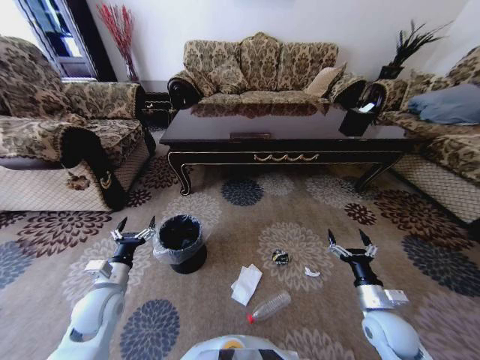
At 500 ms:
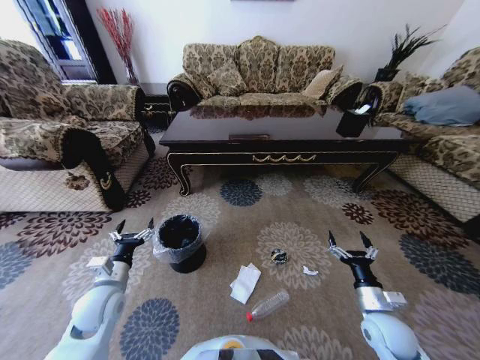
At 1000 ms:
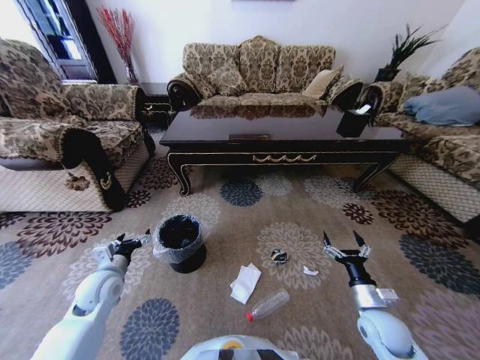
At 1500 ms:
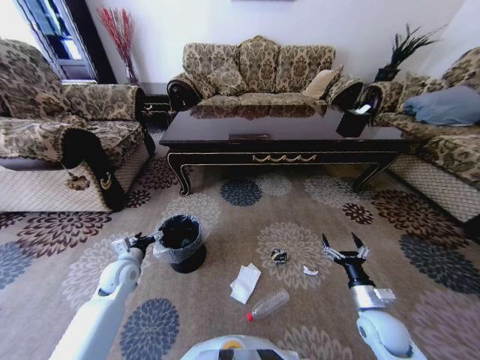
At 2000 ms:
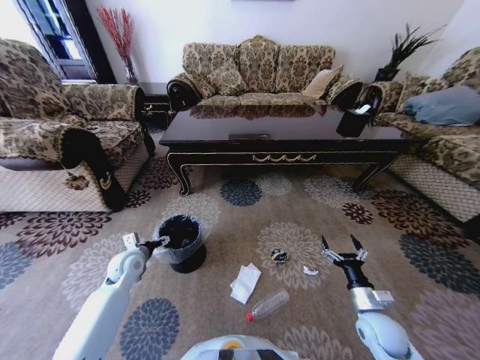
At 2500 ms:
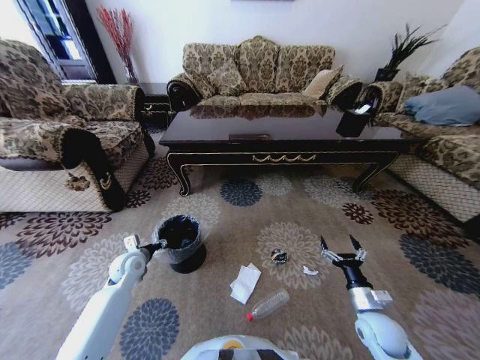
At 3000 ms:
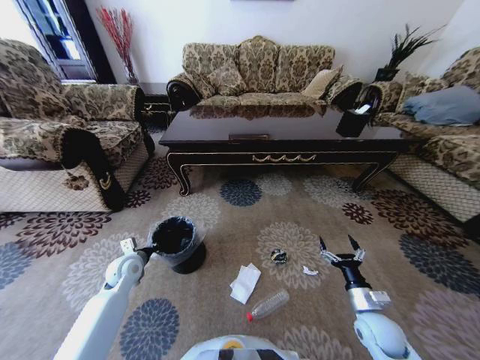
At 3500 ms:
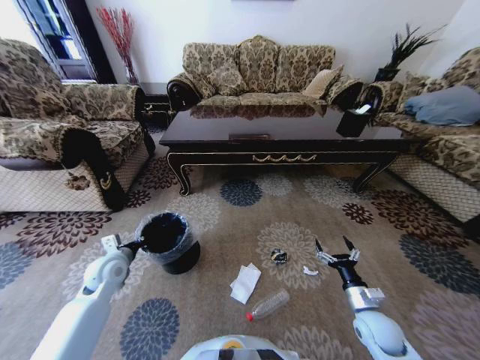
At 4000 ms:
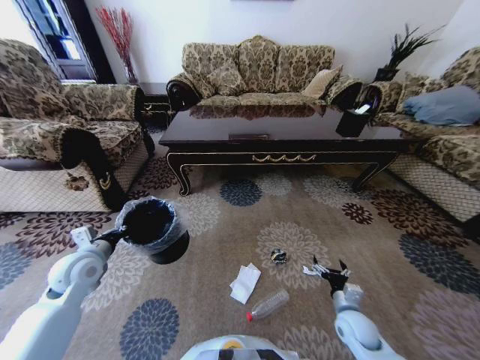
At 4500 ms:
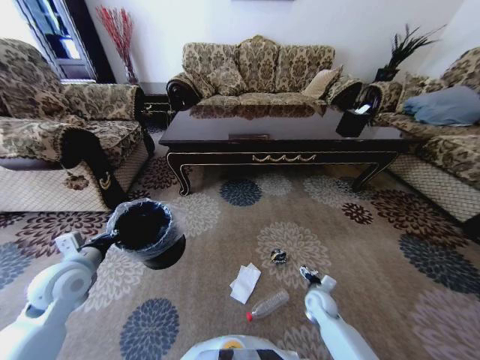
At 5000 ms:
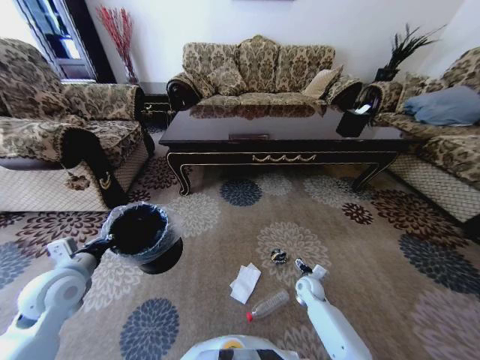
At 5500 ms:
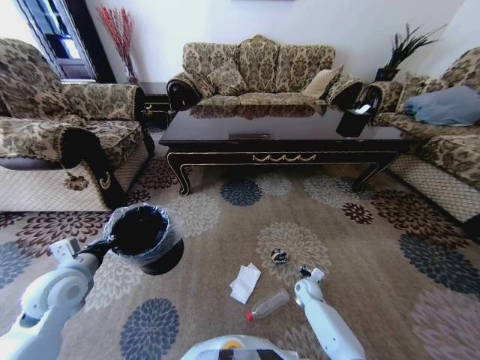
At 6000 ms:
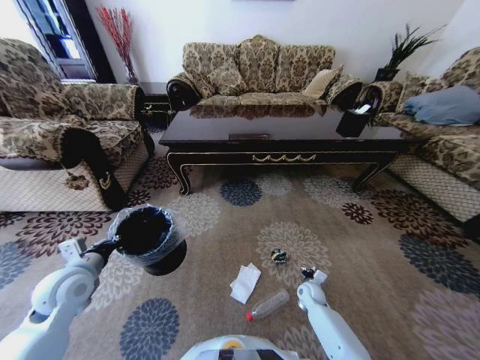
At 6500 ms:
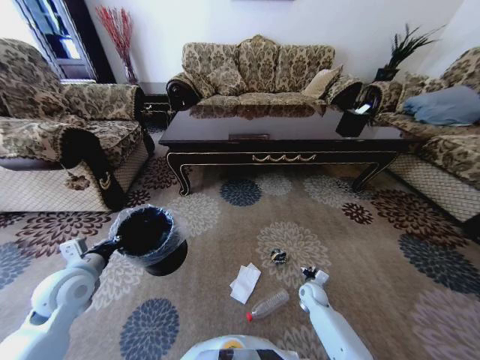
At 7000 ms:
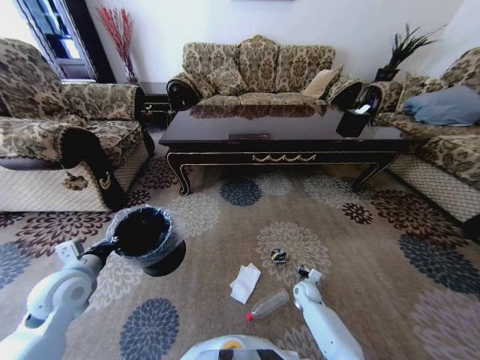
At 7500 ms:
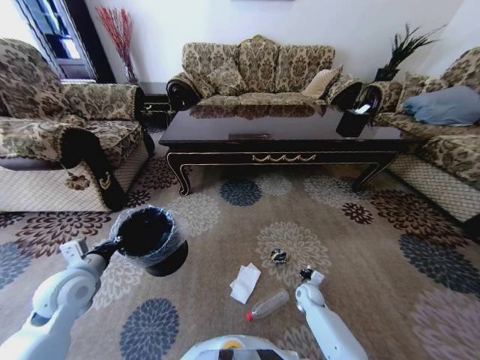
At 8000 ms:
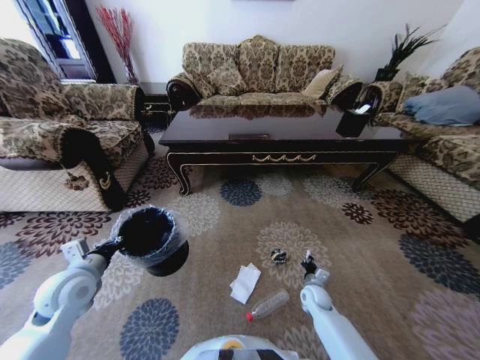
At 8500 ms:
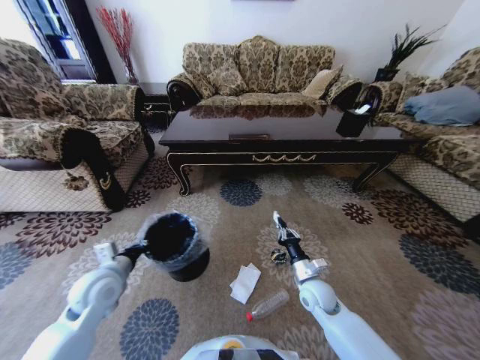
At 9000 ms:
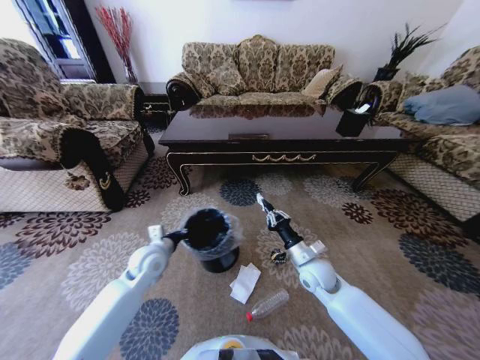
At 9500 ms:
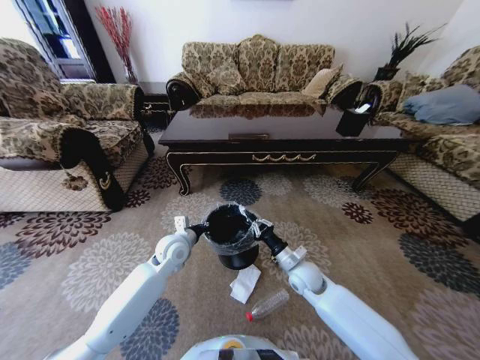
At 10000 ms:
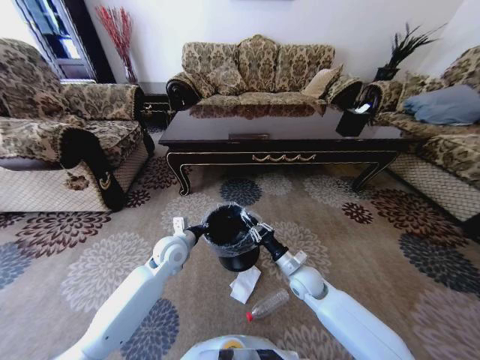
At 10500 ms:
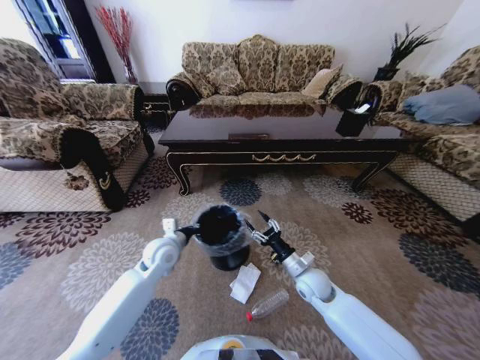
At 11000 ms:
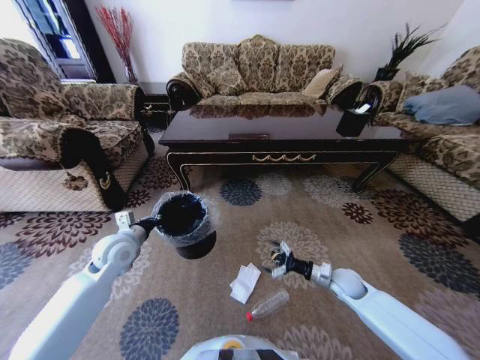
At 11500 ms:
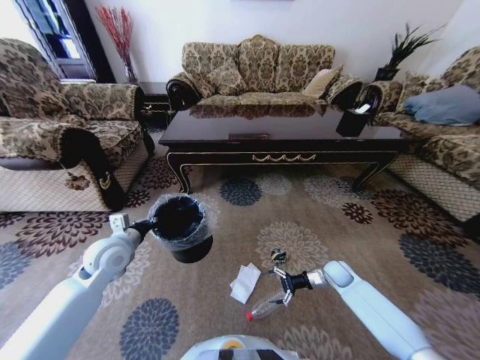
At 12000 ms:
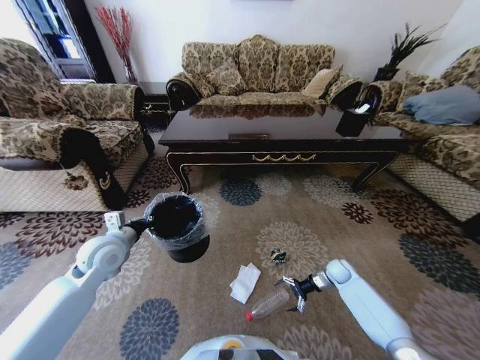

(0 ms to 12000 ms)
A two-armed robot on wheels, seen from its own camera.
Task of the whole recording: Move to the front of the table and pick up the trash from the floor, then place it into the trash bin.
0 ms - 2000 ms: The left gripper heads forward, covering approximately 10 cm.
2000 ms - 4000 ms: The left gripper is displaced upward, backward and to the left by about 15 cm, and closes; the right gripper changes place by some 5 cm.
4000 ms - 6000 ms: The right gripper moves forward and downward, about 15 cm, and closes its fingers.
6000 ms - 8000 ms: The right gripper opens, then closes once more.
8000 ms - 10000 ms: The right gripper moves upward and to the left, some 15 cm. Meanwhile the left gripper is displaced to the right and forward by about 20 cm.
10000 ms - 12000 ms: The right gripper is displaced to the right and downward by about 20 cm, and opens up, while the left gripper travels to the left and upward by roughly 15 cm.

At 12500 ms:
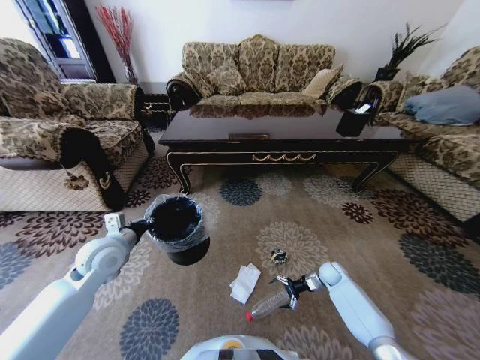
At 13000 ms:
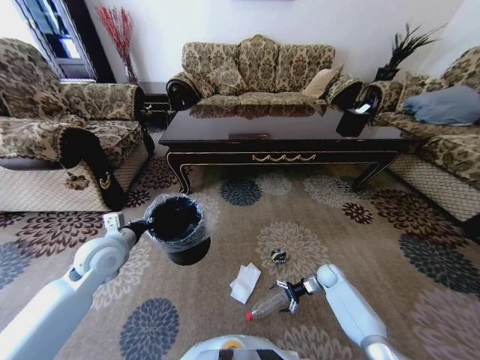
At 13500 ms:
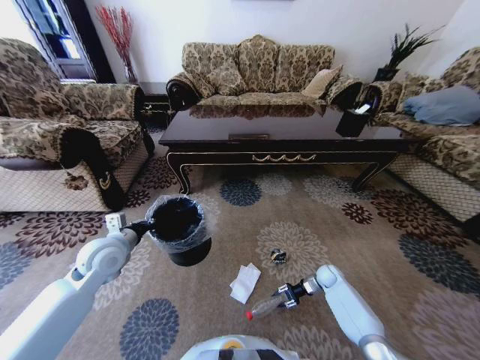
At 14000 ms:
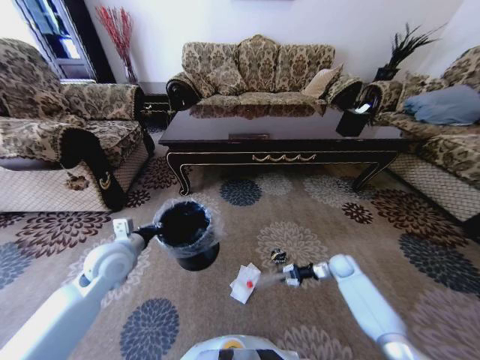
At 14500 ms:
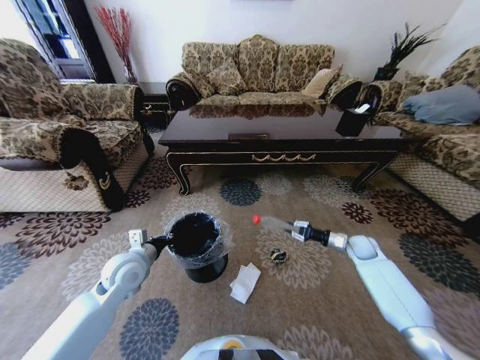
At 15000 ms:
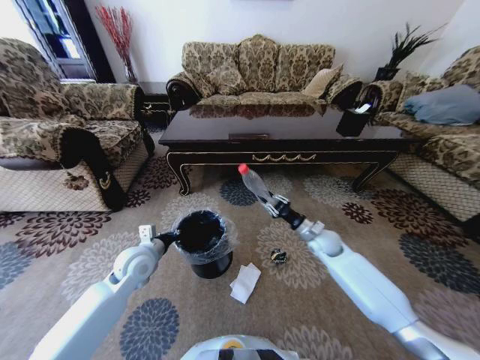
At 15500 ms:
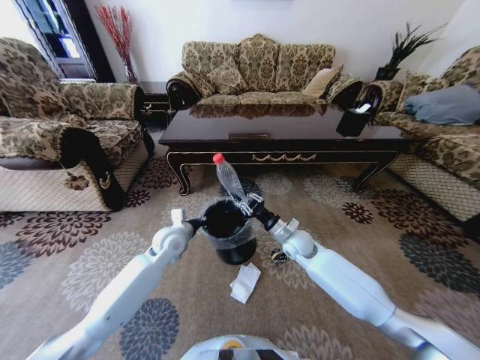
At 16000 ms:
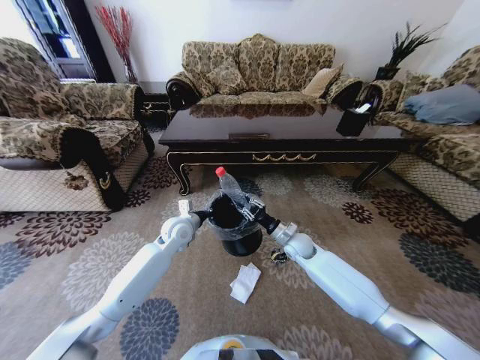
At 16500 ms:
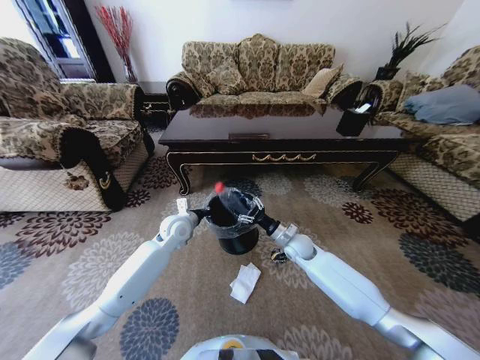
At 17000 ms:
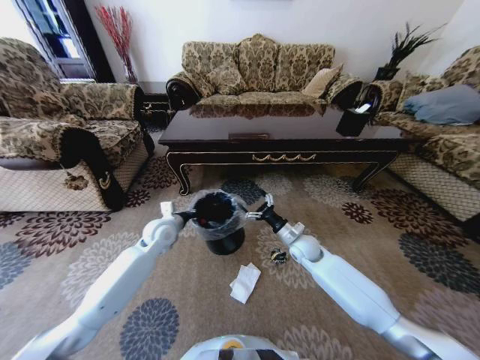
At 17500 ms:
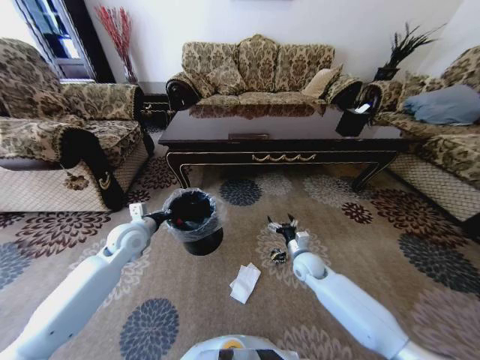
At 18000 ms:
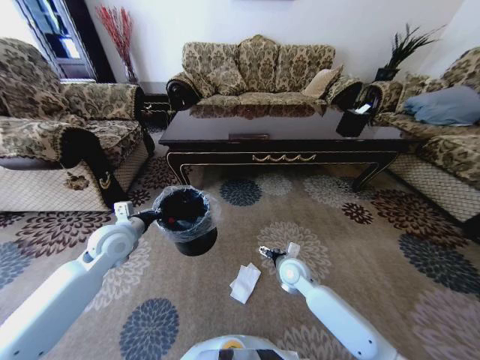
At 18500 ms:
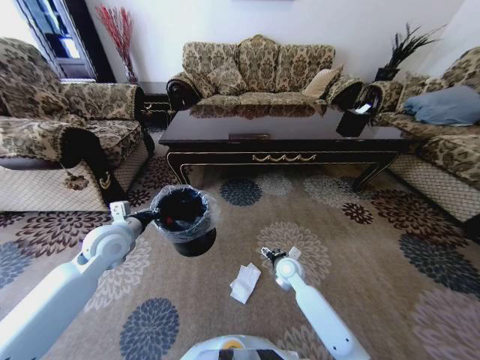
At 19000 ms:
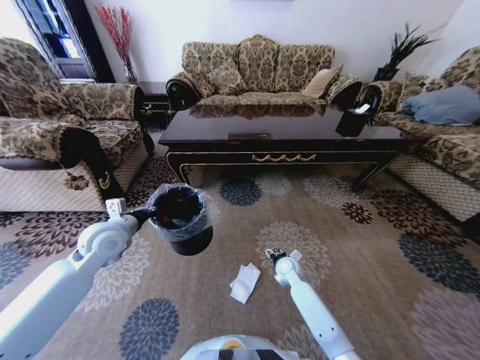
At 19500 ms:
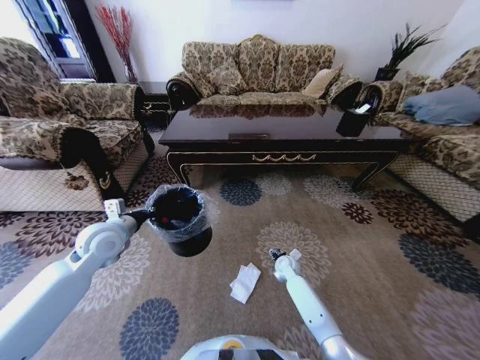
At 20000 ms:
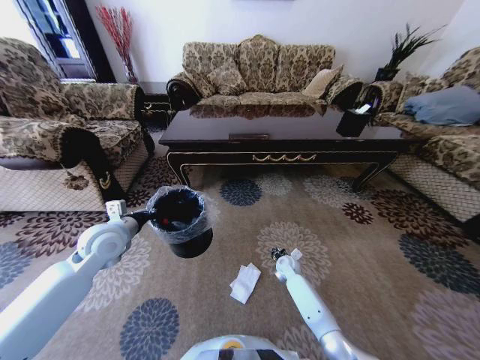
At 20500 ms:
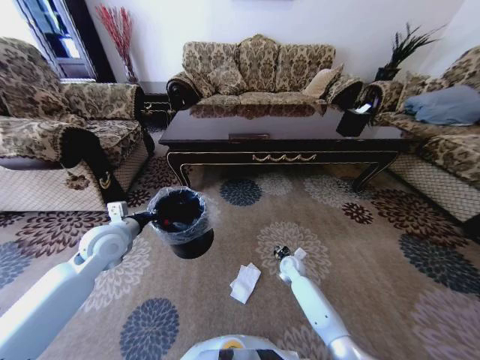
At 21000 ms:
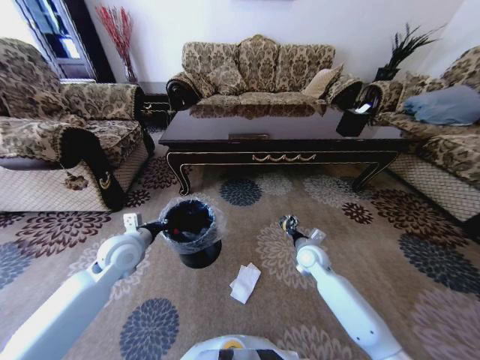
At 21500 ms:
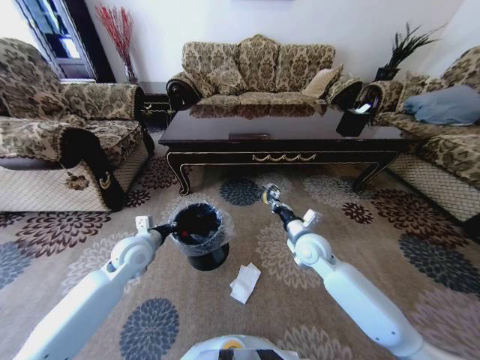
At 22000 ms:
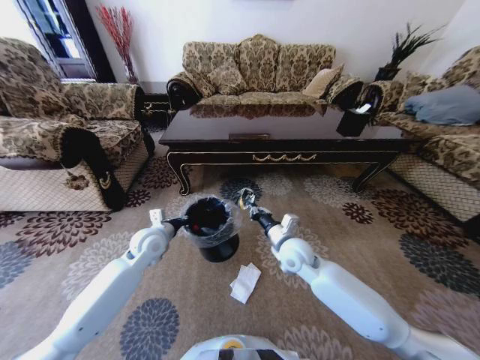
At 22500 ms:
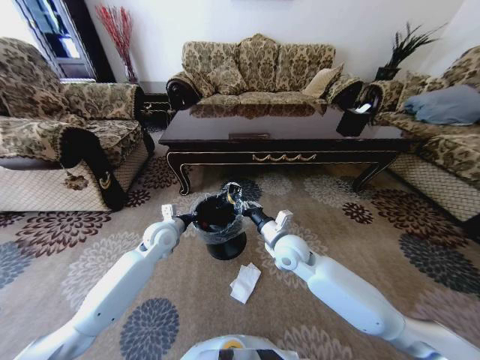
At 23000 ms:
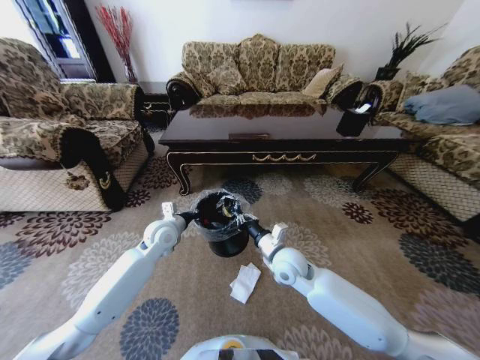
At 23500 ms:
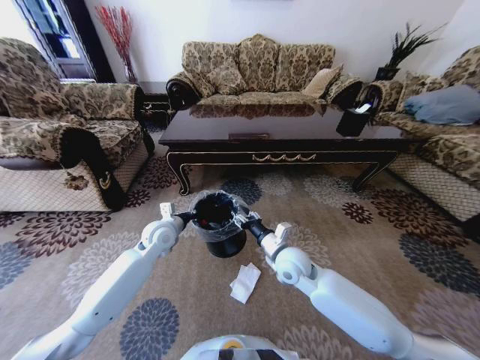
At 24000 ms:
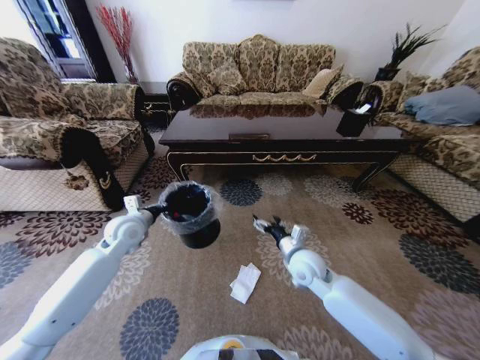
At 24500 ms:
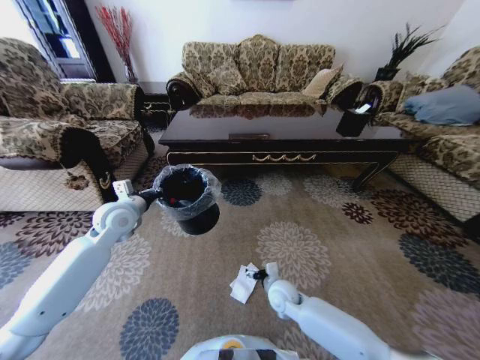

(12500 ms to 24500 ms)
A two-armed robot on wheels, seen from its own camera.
Task of the whole recording: Move to the front of the table and pick up the trash from the floor, then place it into the trash bin.
12500 ms - 14500 ms: The right gripper goes about 15 cm upward and to the right, and closes. Meanwhile the left gripper moves approximately 5 cm.
14500 ms - 16500 ms: The right gripper moves to the left, roughly 25 cm, and opens up, while the left gripper shifts about 15 cm forward and to the right.
16500 ms - 18500 ms: The left gripper shifts roughly 20 cm to the left, backward and upward; the right gripper shifts some 10 cm backward and downward.
18500 ms - 20500 ms: The right gripper moves downward, approximately 5 cm, and closes its fingers.
20500 ms - 22500 ms: The left gripper moves to the right, downward and forward, roughly 15 cm, while the right gripper travels upward by about 20 cm.
22500 ms - 24500 ms: The left gripper moves upward and to the left, some 15 cm. The right gripper travels downward by approximately 20 cm, and opens up.

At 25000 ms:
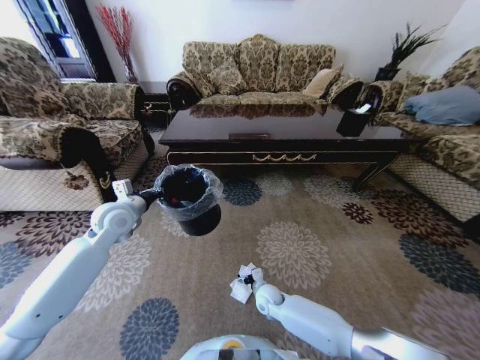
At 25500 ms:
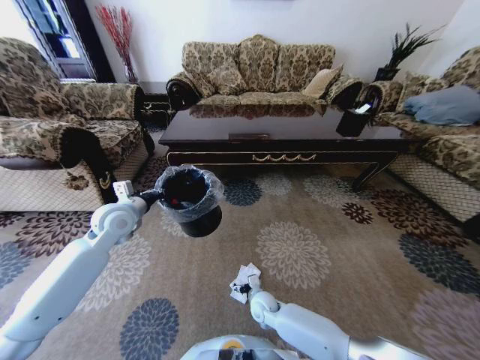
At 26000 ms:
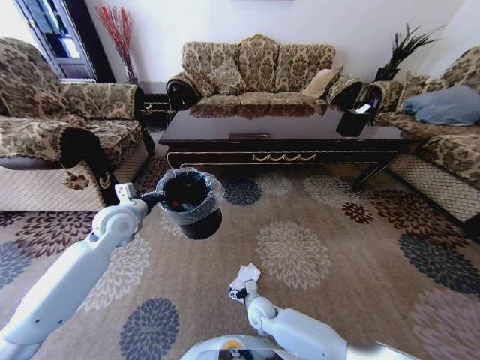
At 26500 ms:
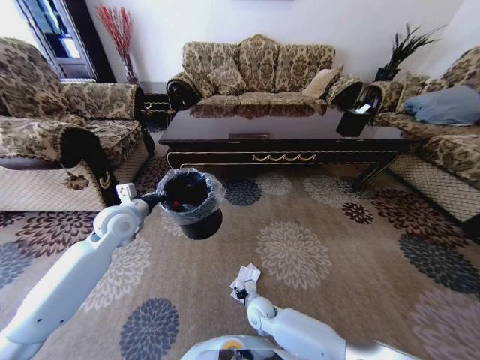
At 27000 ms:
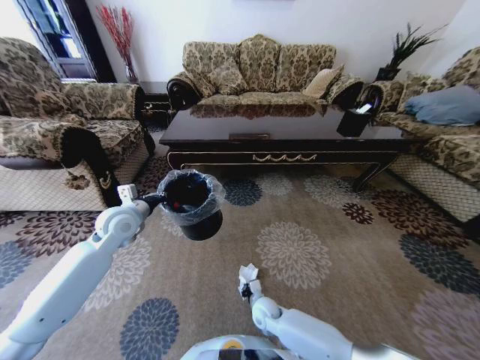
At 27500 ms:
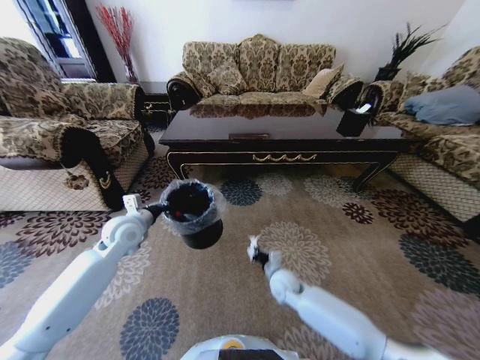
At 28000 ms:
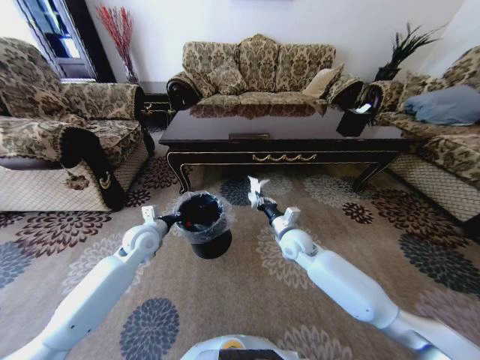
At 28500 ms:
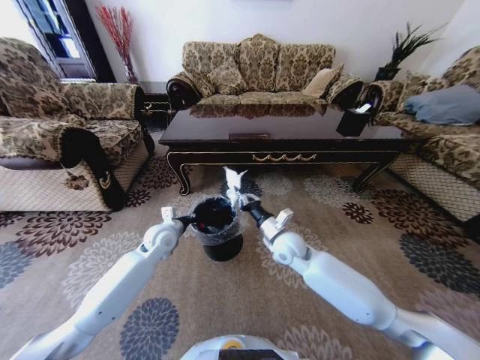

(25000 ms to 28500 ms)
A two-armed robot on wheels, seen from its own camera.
Task of the whole recording: Move to the front of the table and pick up the trash from the floor, then place it into the trash bin.
25000 ms - 27000 ms: The right gripper closes up.
27000 ms - 28500 ms: The left gripper heads downward and to the right, covering some 15 cm. Meanwhile the right gripper moves upward and forward, about 25 cm.
